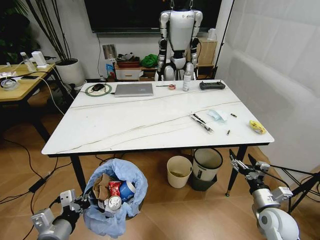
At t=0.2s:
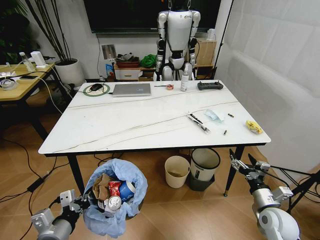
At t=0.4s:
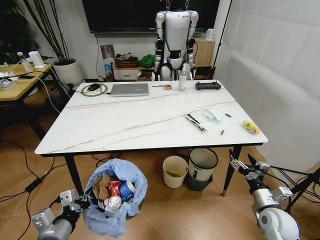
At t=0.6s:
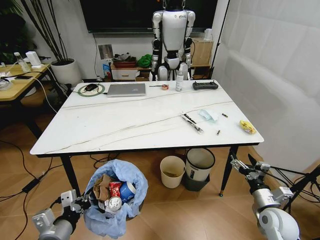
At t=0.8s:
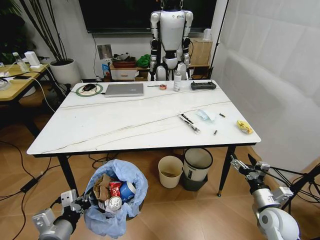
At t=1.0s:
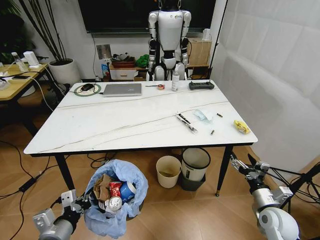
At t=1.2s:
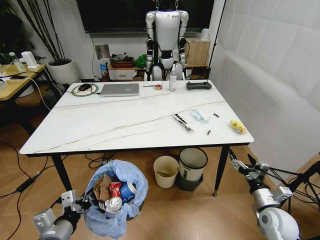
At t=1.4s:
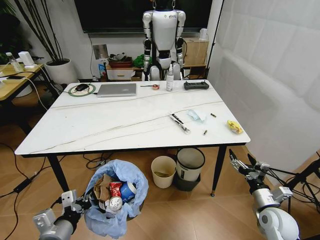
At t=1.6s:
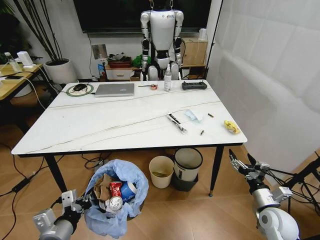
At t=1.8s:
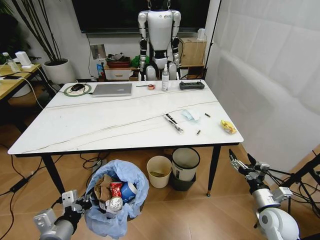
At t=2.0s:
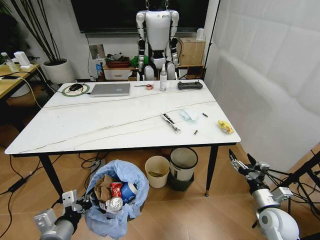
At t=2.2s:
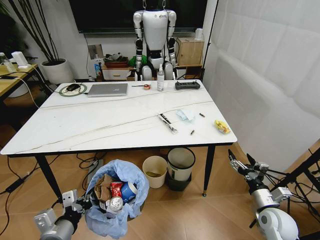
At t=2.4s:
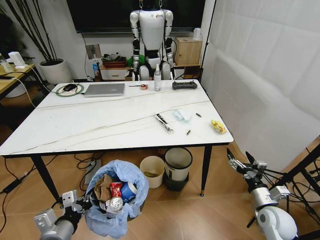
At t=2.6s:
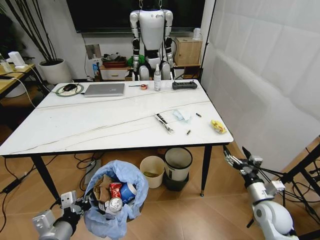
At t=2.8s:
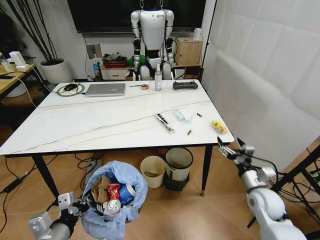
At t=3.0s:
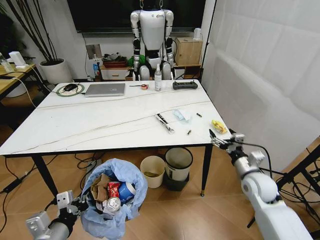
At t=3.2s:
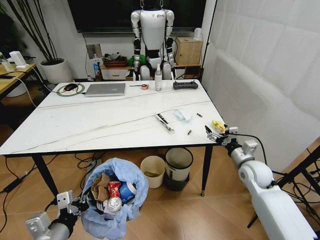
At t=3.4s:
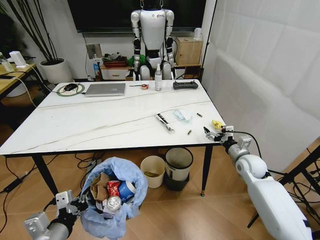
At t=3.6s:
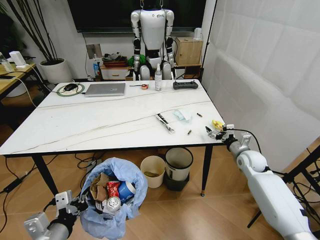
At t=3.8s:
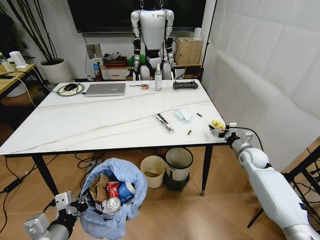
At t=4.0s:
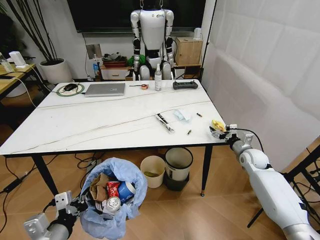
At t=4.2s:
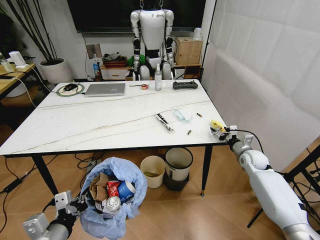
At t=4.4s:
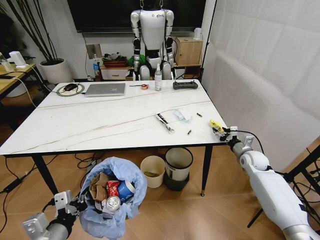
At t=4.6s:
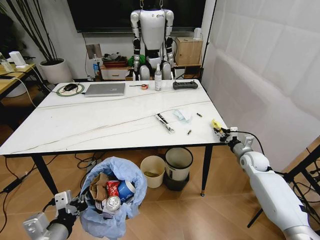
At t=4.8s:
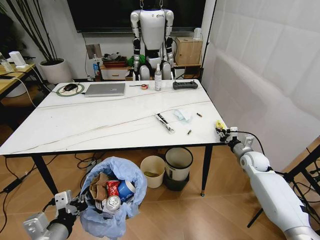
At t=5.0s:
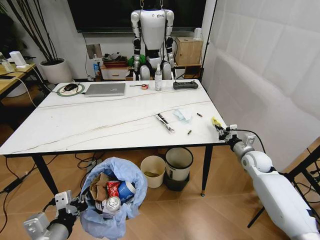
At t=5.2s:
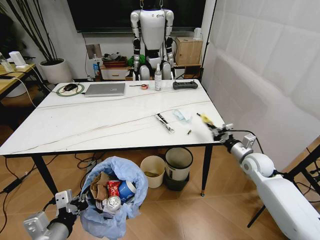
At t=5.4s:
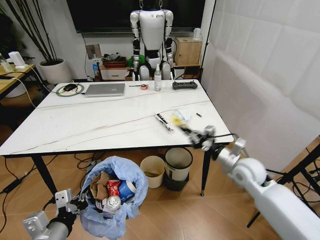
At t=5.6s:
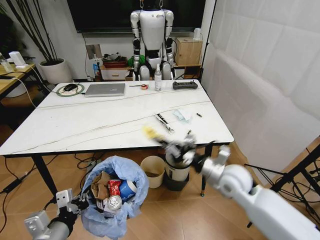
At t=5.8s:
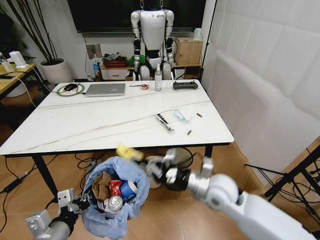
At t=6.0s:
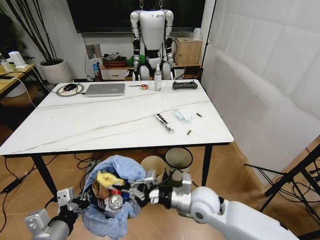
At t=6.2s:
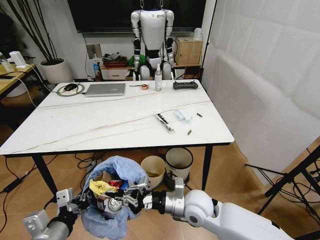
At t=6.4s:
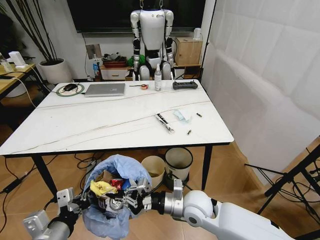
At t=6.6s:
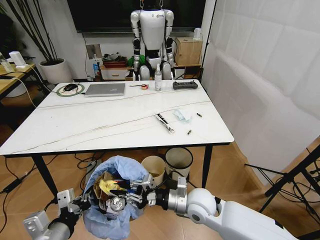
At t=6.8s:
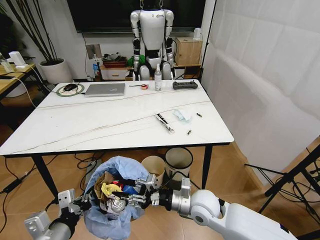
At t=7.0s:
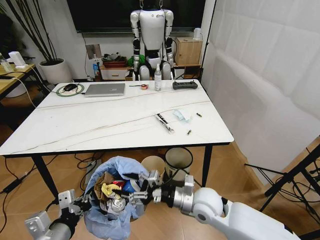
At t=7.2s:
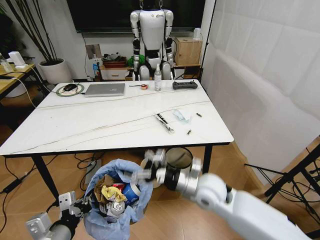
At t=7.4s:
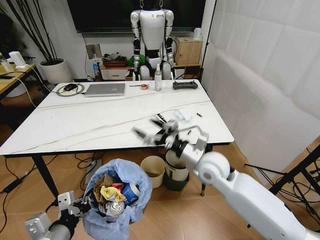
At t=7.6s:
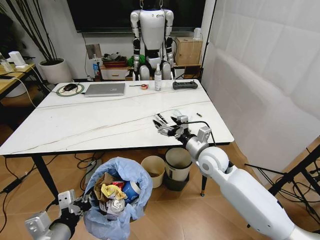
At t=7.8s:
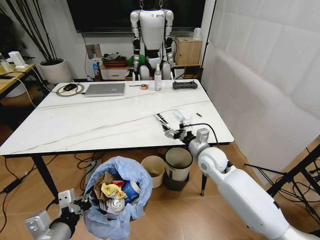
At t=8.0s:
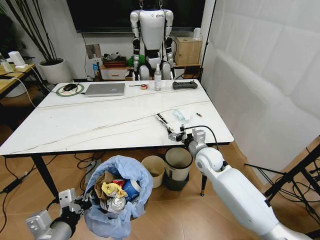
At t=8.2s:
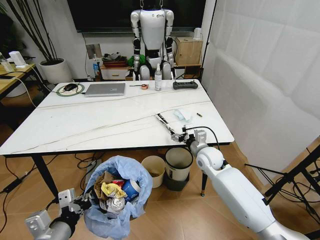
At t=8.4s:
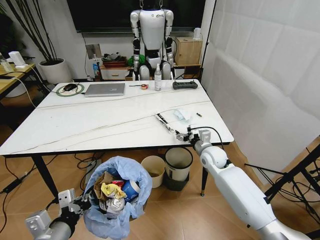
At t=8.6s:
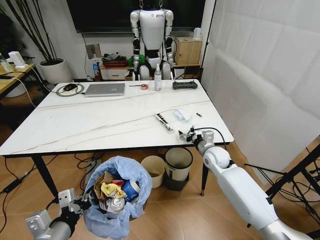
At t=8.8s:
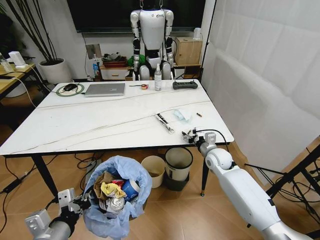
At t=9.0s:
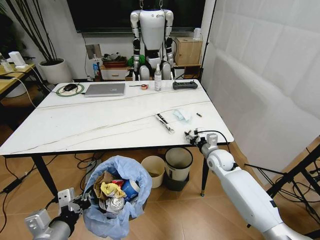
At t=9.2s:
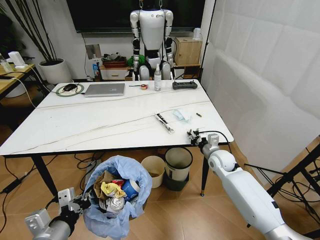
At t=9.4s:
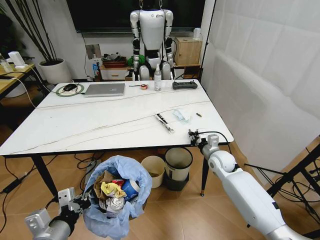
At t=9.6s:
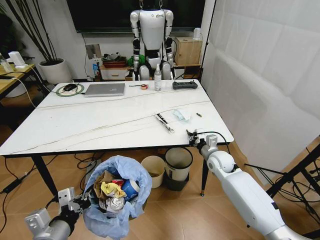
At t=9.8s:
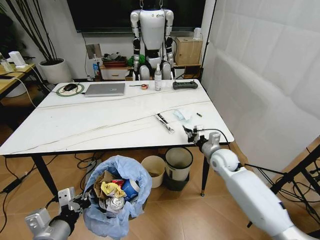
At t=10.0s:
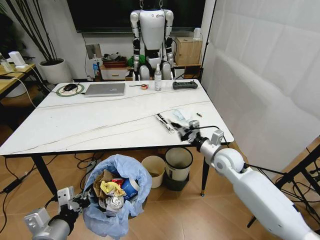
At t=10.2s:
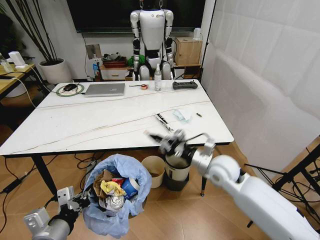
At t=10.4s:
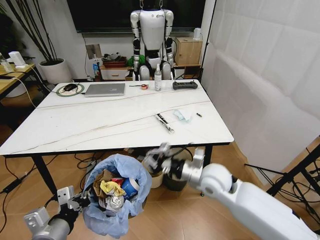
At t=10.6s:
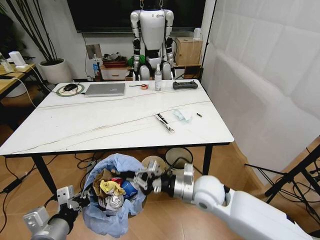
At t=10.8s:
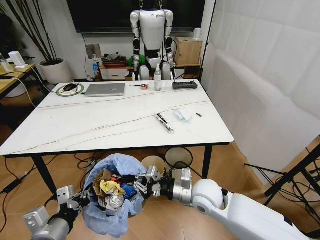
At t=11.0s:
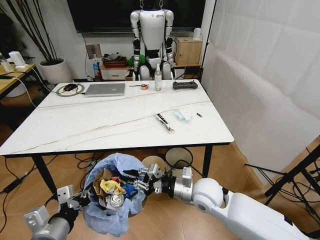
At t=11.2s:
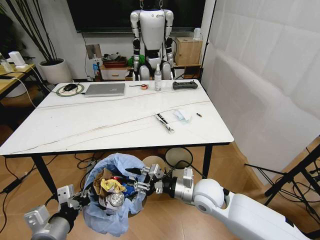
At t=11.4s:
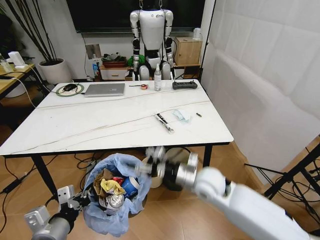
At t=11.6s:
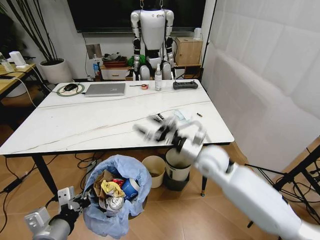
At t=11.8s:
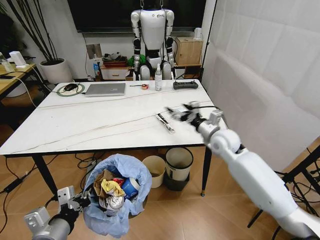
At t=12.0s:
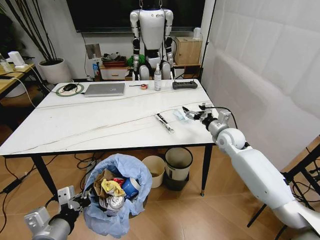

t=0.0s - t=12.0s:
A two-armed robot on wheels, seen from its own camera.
Task of the whole recording: Pick up the trash bin and place the trash from the table into it.
t=1.6s - t=3.0s: The right gripper shifts approximately 10 cm forward and upward.
t=3.0s - t=4.4s: The right gripper goes roughly 15 cm forward and to the right, and closes.
t=4.4s - t=6.0s: The right gripper goes approximately 30 cm to the left and backward, and closes.
t=6.0s - t=7.6s: The right gripper shifts approximately 15 cm forward and upward, and opens.
t=7.6s - t=9.0s: The right gripper is displaced downward, to the right and forward by roughly 15 cm, and closes its fingers.
t=9.0s - t=10.4s: The right gripper shifts about 15 cm backward, upward and to the left, and closes its fingers.
t=10.4s - t=12.0s: The right gripper shifts roughly 20 cm forward and to the right, and opens.

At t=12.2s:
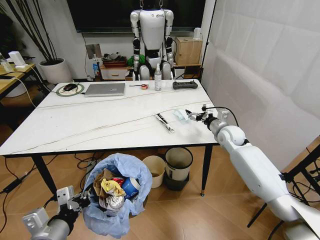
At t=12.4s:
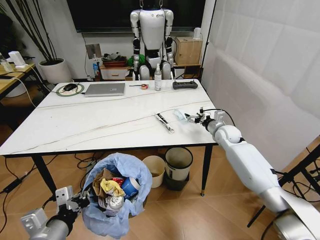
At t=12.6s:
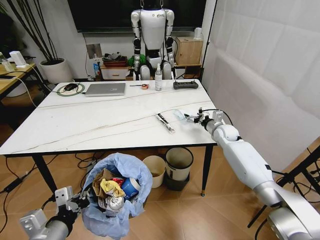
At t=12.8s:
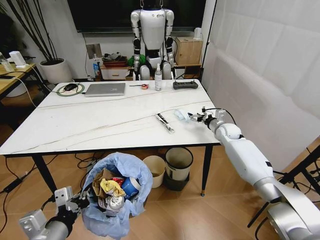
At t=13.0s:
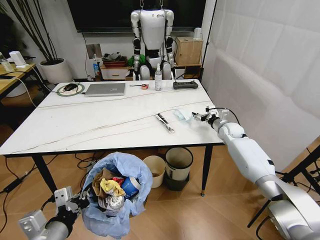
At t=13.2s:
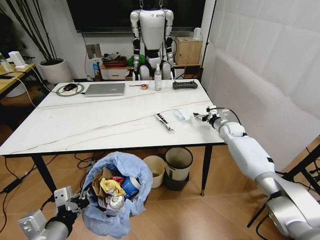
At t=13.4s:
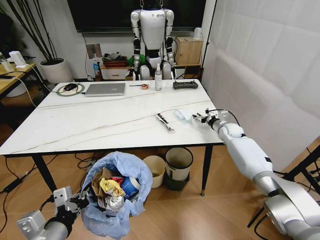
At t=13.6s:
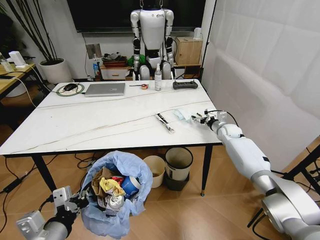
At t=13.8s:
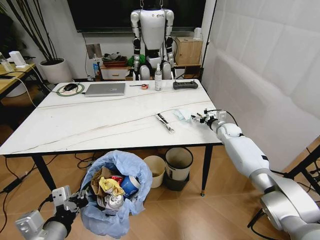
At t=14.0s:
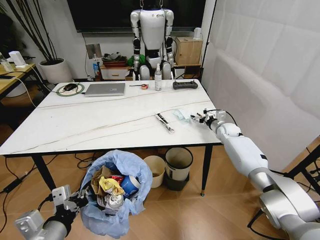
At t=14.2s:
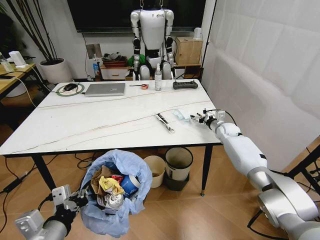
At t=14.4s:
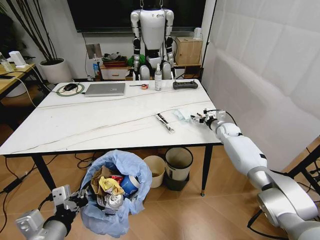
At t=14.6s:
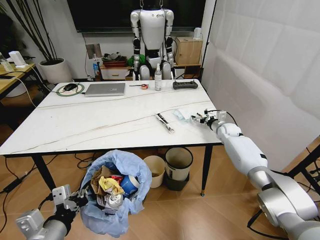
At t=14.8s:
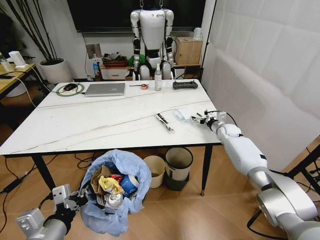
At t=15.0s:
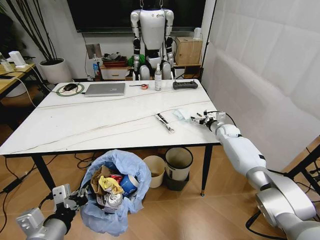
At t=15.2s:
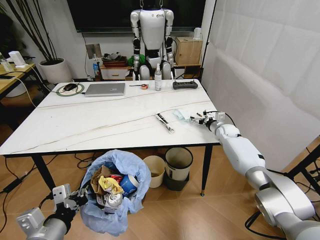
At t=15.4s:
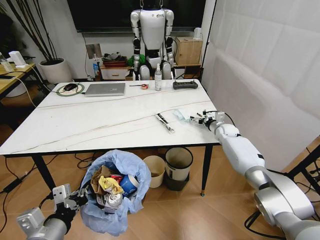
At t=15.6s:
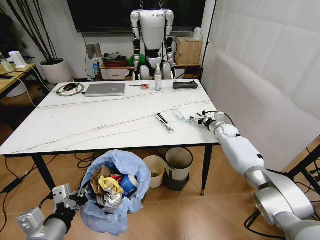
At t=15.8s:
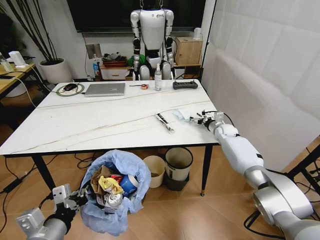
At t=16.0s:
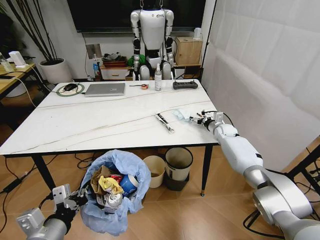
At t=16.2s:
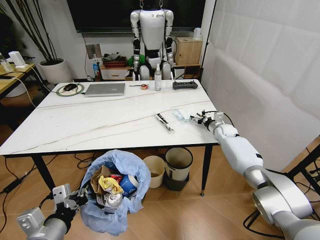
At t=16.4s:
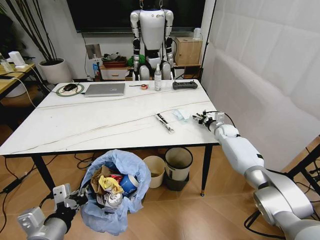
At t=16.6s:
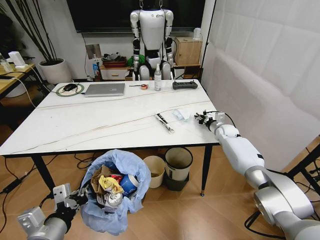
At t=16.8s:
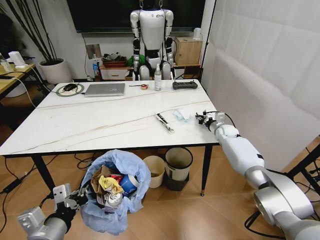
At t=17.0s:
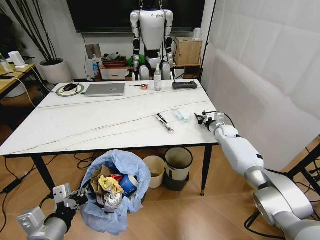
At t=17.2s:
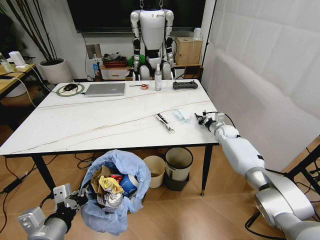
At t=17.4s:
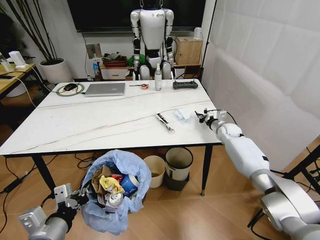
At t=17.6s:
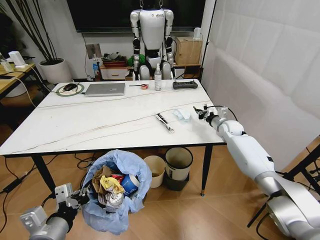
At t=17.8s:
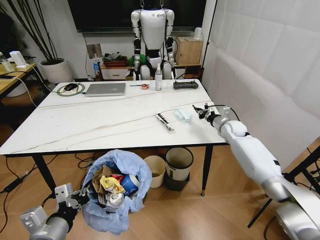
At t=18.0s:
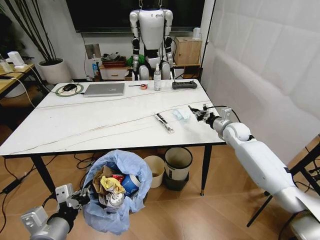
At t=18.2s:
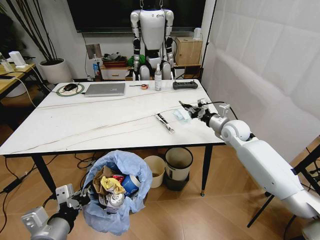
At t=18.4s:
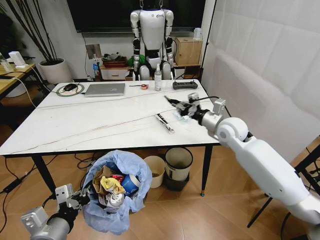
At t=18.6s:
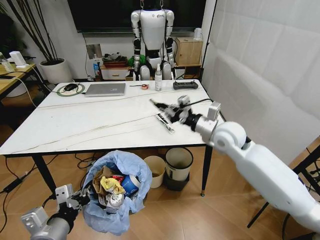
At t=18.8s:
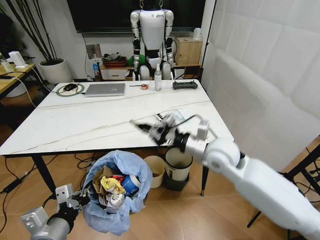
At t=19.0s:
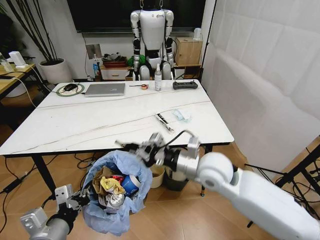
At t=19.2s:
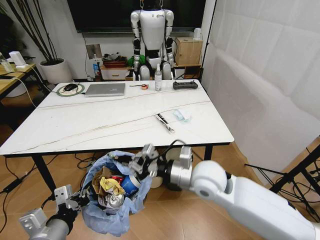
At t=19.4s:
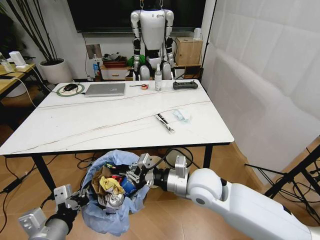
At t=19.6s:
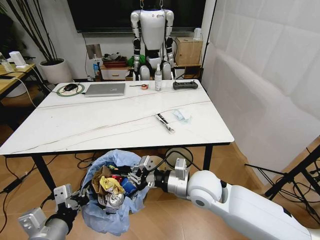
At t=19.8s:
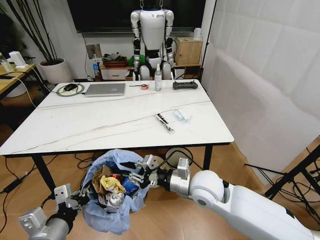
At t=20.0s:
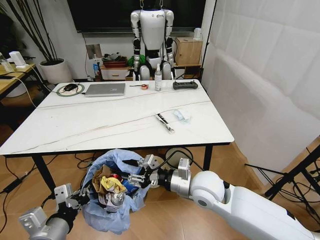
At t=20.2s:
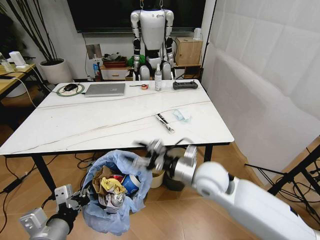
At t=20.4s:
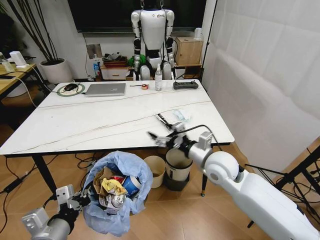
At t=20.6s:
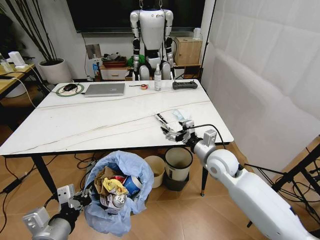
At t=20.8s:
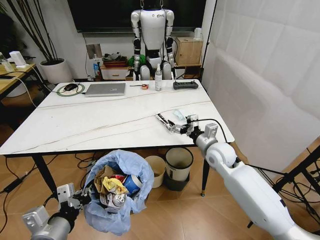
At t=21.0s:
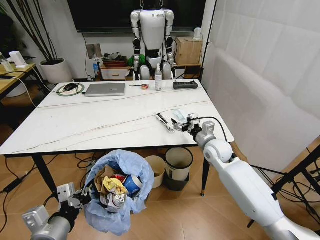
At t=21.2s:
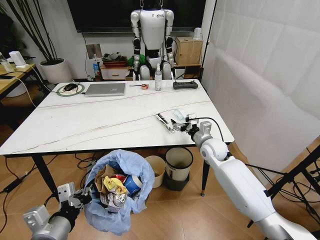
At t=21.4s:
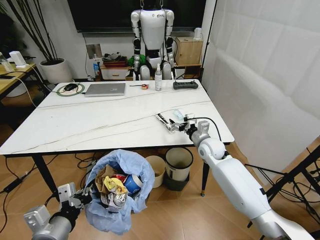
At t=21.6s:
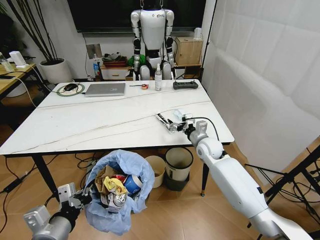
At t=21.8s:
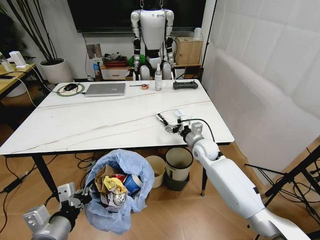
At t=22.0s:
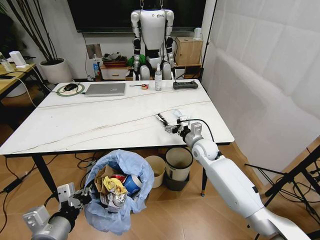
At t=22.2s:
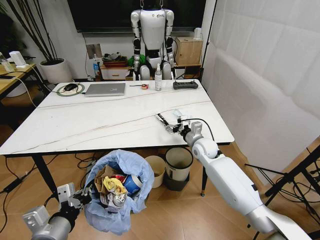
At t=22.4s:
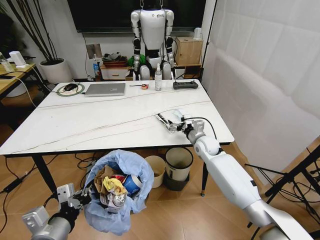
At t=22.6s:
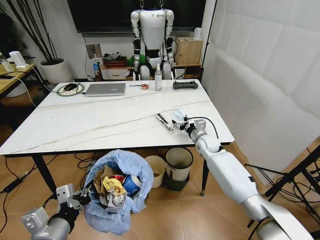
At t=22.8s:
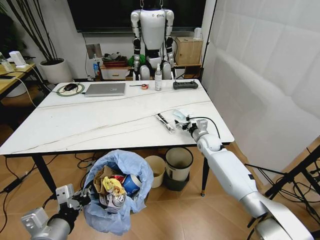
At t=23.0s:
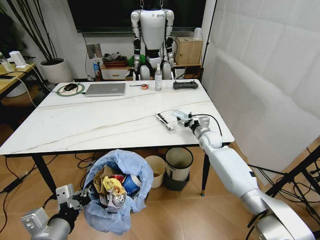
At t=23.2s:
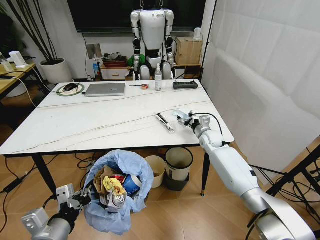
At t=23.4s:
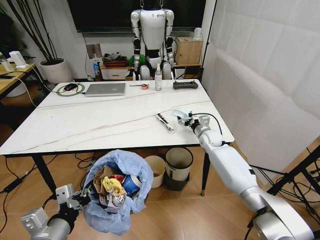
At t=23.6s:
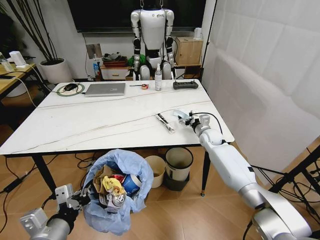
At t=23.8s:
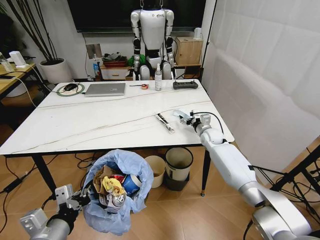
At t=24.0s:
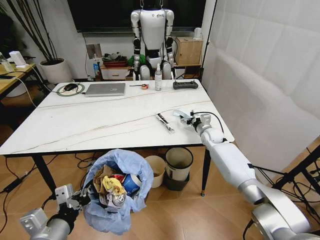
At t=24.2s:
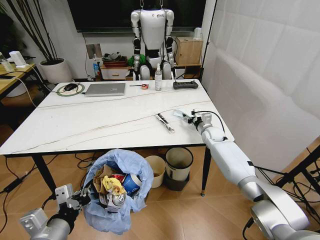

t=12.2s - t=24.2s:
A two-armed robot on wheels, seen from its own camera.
Task of the whole recording: Pick up the trash bin and place the trash from the table into it.
t=12.2s - t=13.8s: The right gripper shifts roughly 10 cm forward and downward.
t=13.8s - t=15.2s: Both grippers stay about where they are.
t=15.2s - t=16.6s: The right gripper closes its fingers.
t=16.6s - t=18.2s: The right gripper is displaced upward and backward by some 15 cm.
t=18.2s - t=19.8s: The right gripper heads backward and to the left, covering some 25 cm.
t=19.8s - t=21.2s: The right gripper goes approximately 20 cm forward and to the right, and opens its fingers.
t=21.2s - t=22.6s: The right gripper travels forward and downward by about 10 cm.
t=22.6s - t=24.2s: The right gripper is displaced forward by approximately 5 cm.
